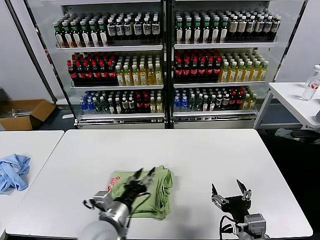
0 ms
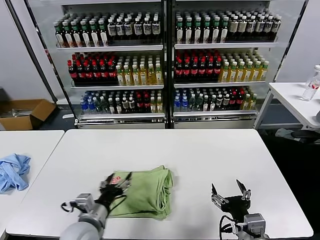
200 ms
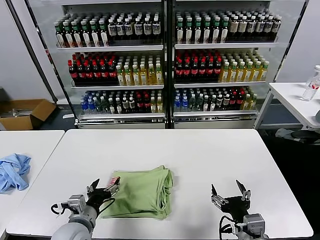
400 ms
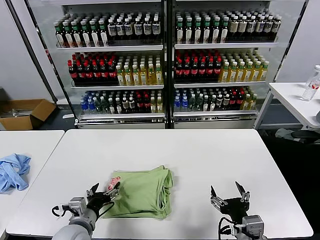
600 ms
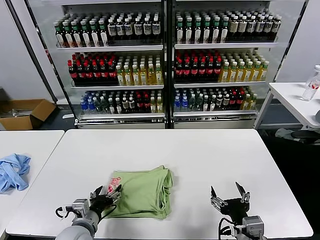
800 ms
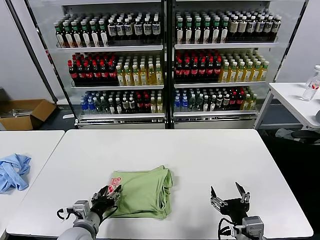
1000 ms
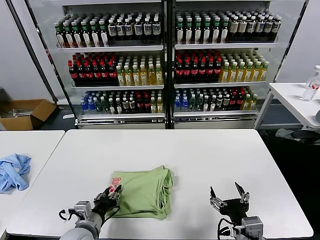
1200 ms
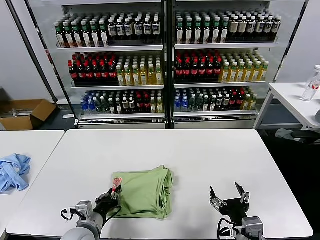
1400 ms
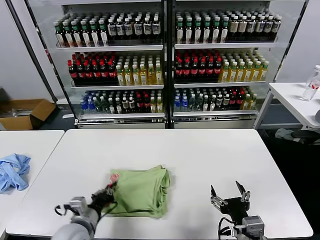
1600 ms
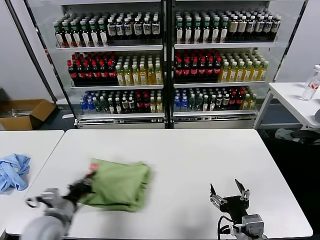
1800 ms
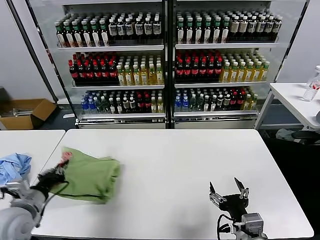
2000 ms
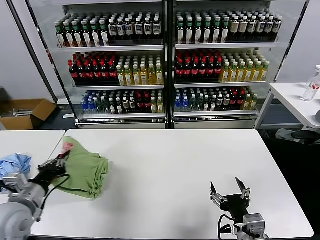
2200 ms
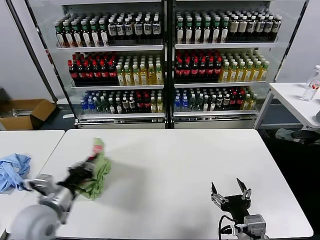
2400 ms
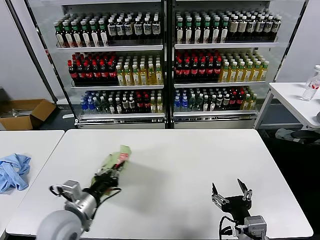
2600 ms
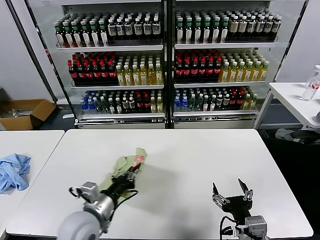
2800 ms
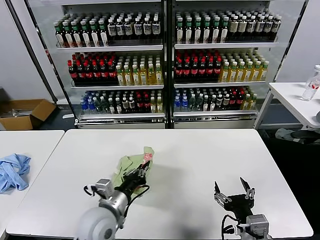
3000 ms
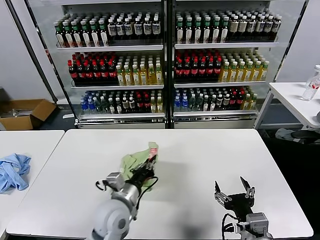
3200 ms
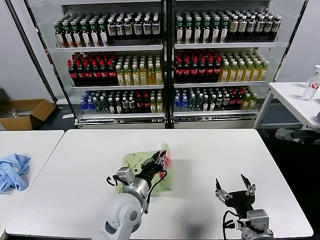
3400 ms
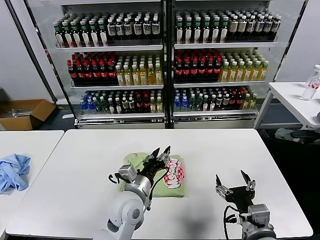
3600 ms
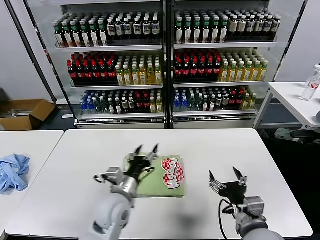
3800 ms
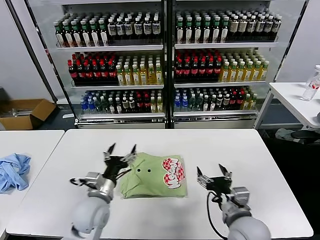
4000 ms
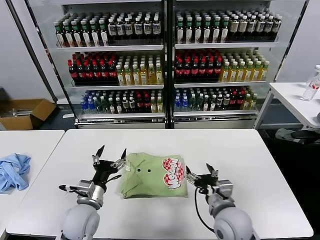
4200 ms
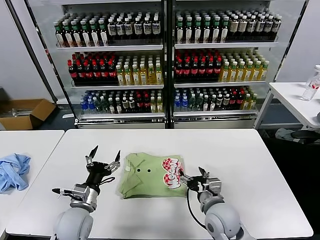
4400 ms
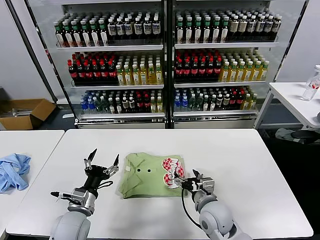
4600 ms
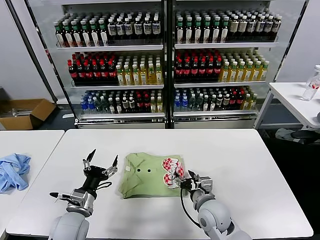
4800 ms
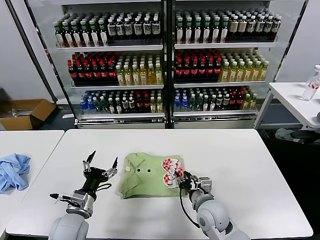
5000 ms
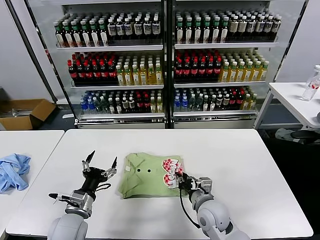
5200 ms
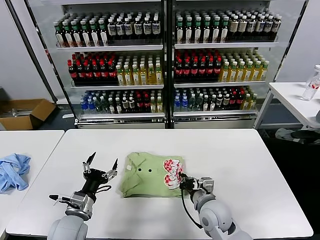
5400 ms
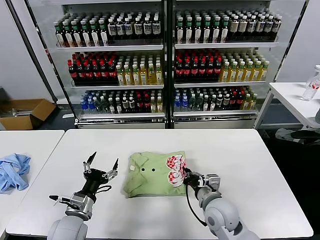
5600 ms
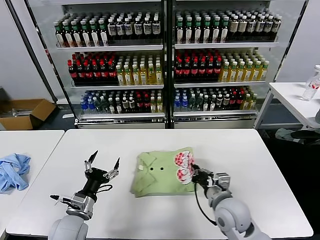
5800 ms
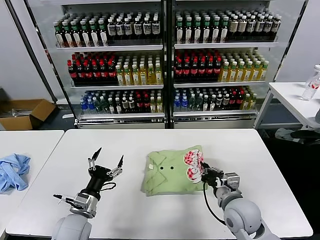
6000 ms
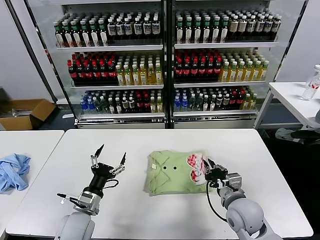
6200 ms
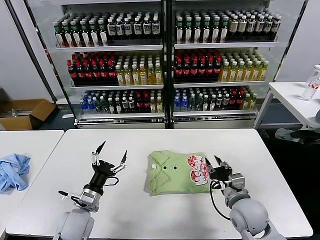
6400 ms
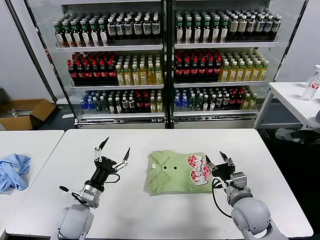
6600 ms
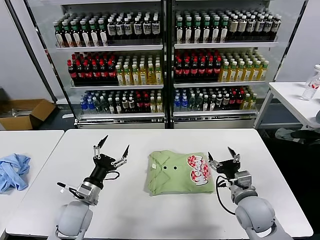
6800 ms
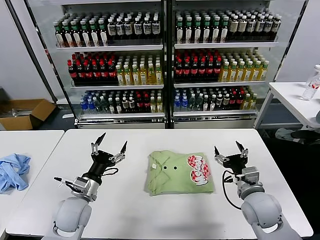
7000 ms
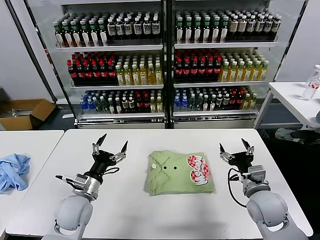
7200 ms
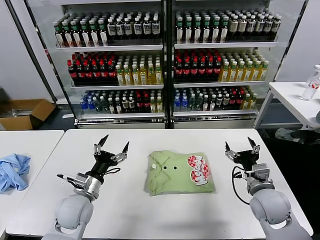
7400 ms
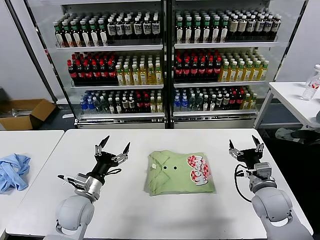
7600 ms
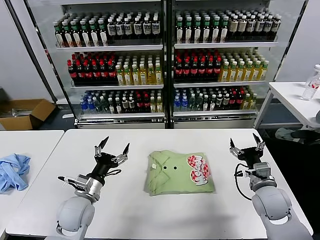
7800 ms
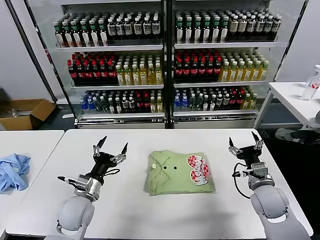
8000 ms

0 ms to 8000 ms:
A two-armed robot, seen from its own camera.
Task of the whole recording: fold and organize the clothes.
Step, 0 ms to 3400 ms: Flip the folded clothes over with left gripper.
Step, 3600 ms to 6200 ms: Drag the clothes to the center of the table.
0 ms to 1600 ms: The left gripper travels to the left and downward by some 10 cm, and closes up.
1600 ms to 3200 ms: The left gripper goes some 15 cm to the right and upward.
3200 ms to 4800 ms: The left gripper travels to the left and downward by approximately 15 cm, and opens its fingers, while the right gripper heads forward, downward and to the left, covering roughly 20 cm.
4800 ms to 6400 ms: The right gripper heads to the right, covering approximately 10 cm, and closes.
6400 ms to 8000 ms: The right gripper heads to the right, covering about 10 cm, and opens.

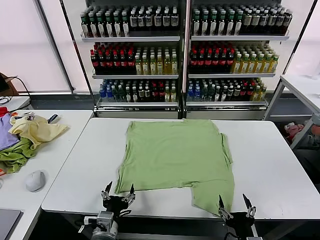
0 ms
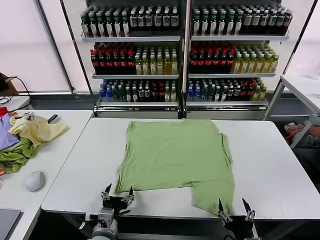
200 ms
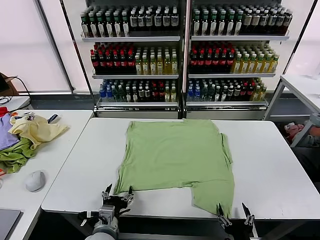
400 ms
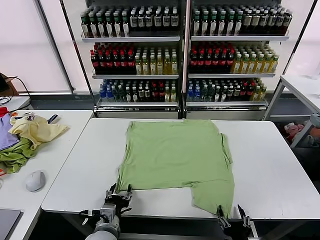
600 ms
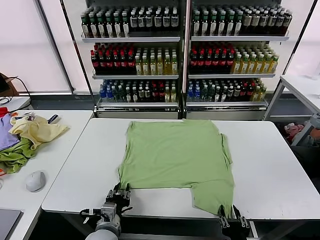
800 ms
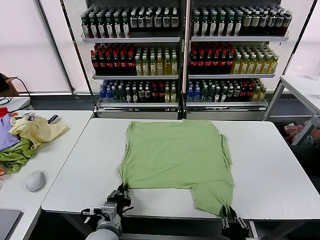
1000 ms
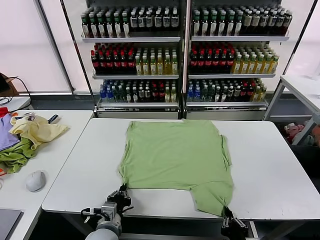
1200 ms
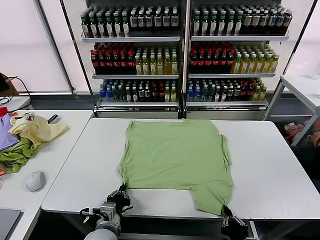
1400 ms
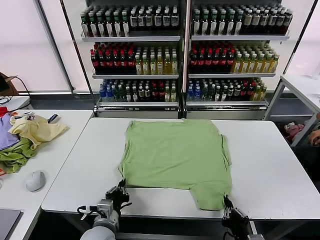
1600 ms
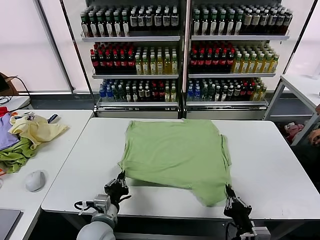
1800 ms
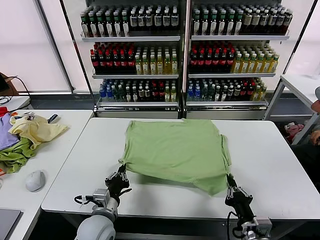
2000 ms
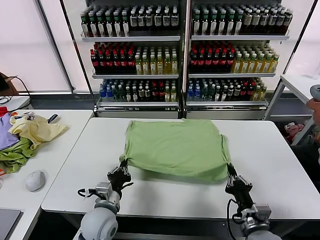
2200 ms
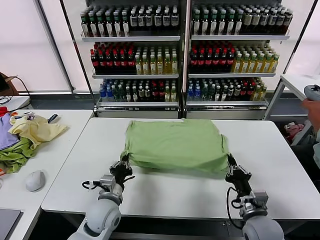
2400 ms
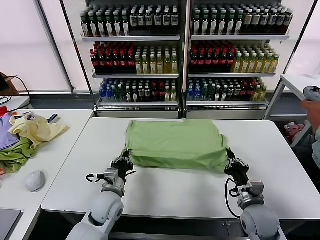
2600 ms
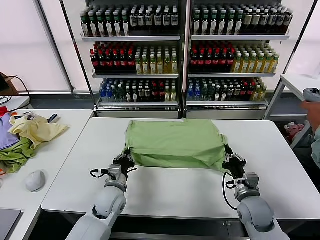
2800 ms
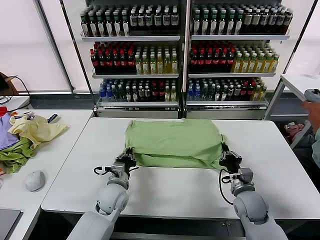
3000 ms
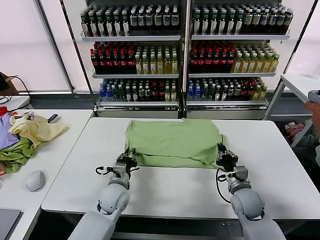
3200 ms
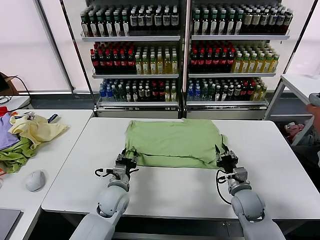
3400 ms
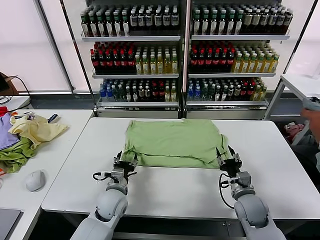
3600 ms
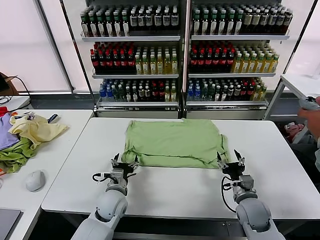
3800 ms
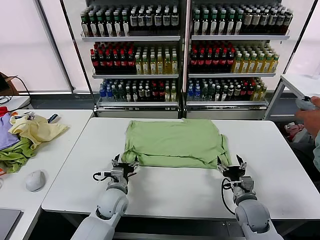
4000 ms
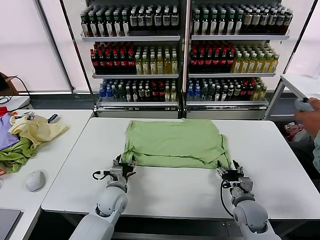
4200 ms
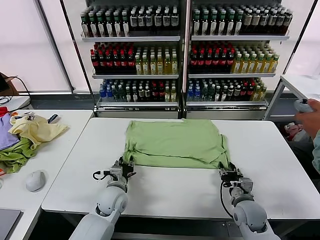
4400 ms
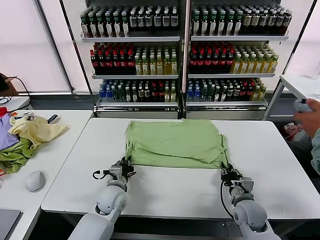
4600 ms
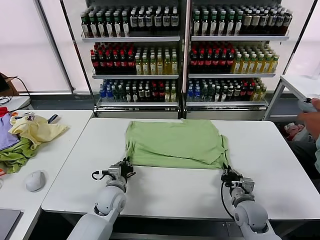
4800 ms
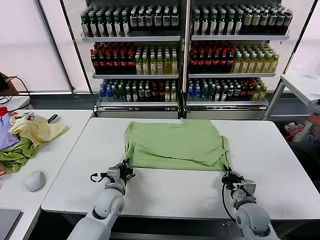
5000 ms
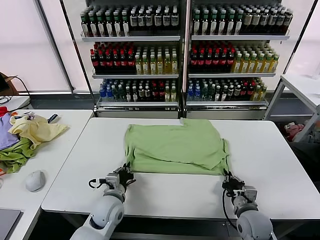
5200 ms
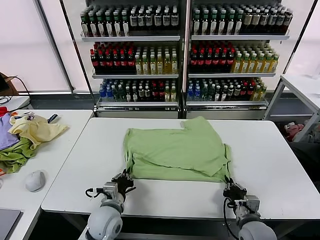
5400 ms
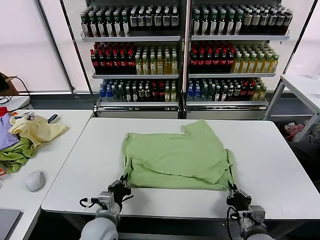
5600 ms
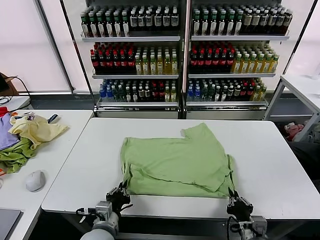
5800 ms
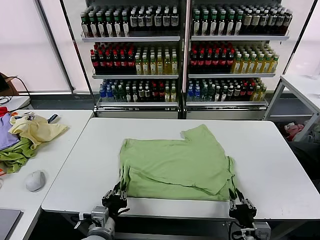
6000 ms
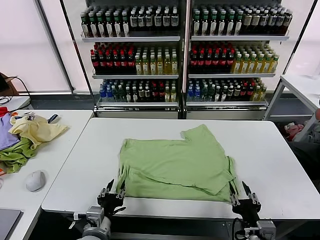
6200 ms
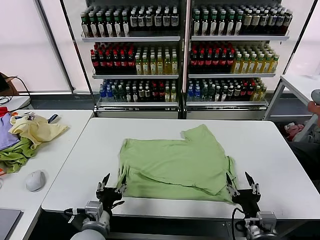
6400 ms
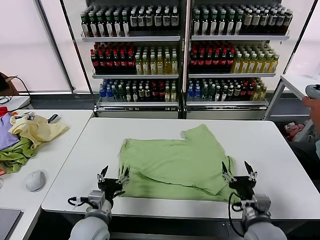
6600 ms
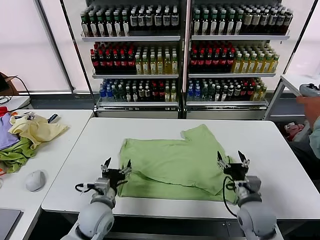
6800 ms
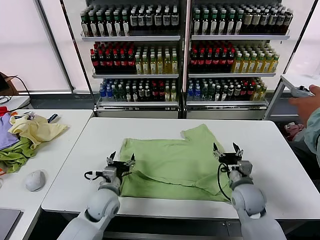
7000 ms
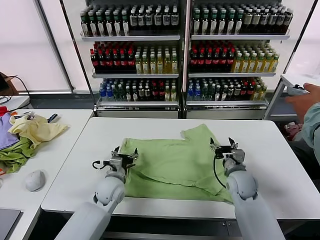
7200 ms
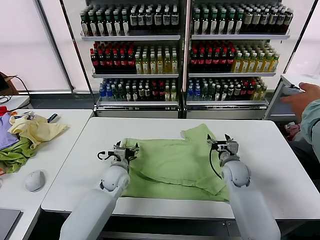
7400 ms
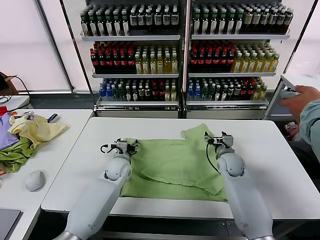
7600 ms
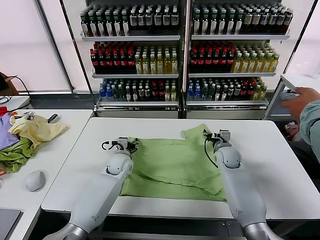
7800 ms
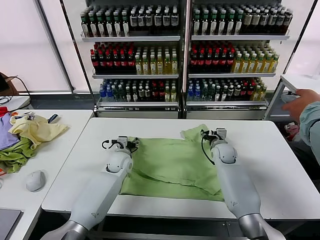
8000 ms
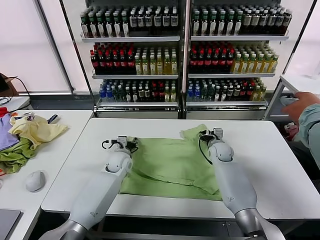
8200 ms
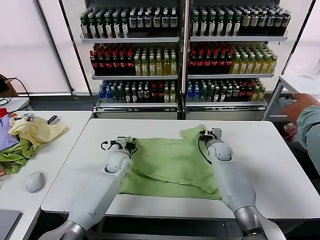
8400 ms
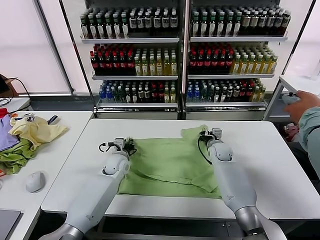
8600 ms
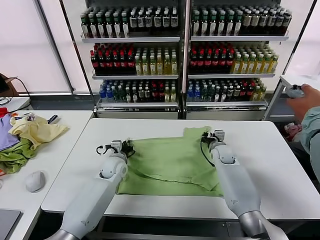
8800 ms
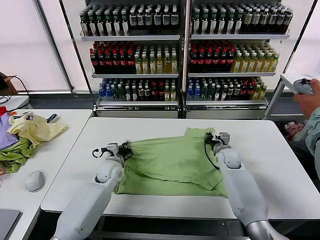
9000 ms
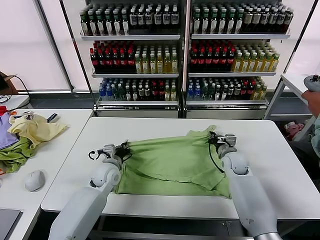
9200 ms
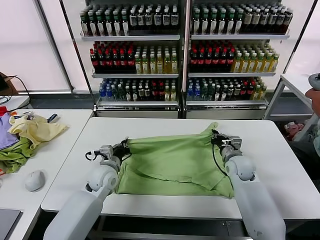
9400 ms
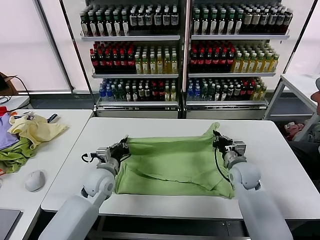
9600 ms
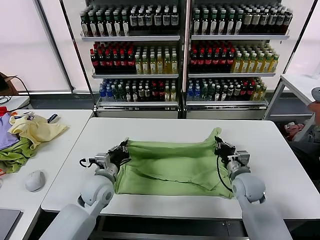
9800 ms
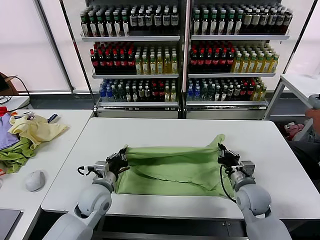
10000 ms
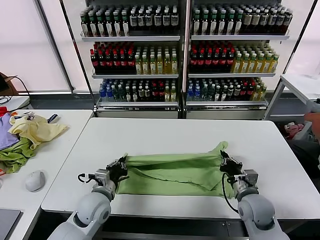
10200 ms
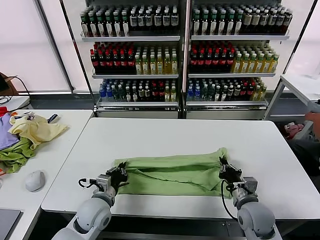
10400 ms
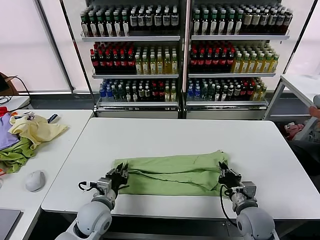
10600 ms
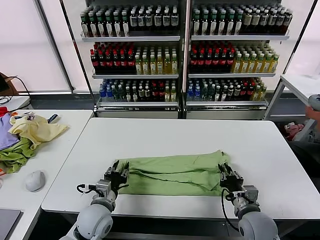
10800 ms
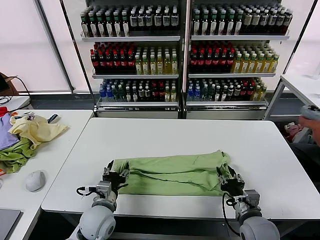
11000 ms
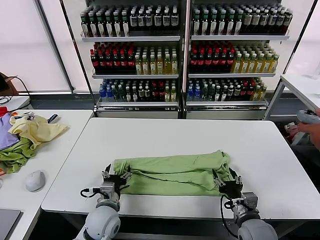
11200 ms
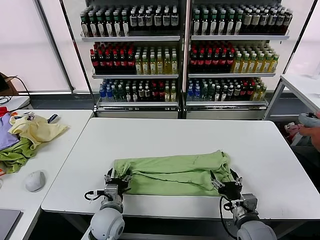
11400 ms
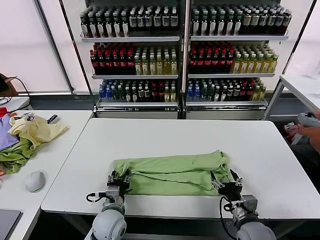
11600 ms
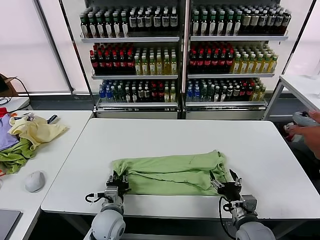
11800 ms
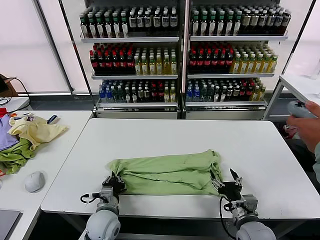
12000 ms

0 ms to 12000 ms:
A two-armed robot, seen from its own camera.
Task of the whole recording: fold and organize the clothes.
Step, 0 ms to 1200 ms: use both grippers simultaneously to clamp the lower edge of the clothing fabric.
Step, 1400 ms to 3400 ms: use both grippers to drag the lower edge of the fabric forward and fold it over the upper edge.
Step, 3800 ms to 6000 ms: Drag the clothes downward with both gripper.
Step, 6400 ms to 8800 ms: use both grippers simultaneously to clamp the upper edge of the clothing fabric.
Step, 9000 ms to 10800 ms: use both grippers to drag the upper edge of the fabric backward and fold it over the lower edge.
Step, 11200 ms to 12000 ms: use the left gripper to clamp the left edge of the fabric.
1600 ms to 3000 ms: Both grippers move forward, about 15 cm.
3000 ms to 4400 ms: The right gripper opens and closes again. Meanwhile the left gripper opens, then closes once more.
4400 ms to 6000 ms: Both grippers travel together backward, some 15 cm. The right gripper closes, then opens again.
6000 ms to 7600 ms: The two grippers go about 30 cm forward. The right gripper opens up. The left gripper opens.
7600 ms to 9000 ms: The left gripper closes up; the right gripper closes.
9000 ms to 10400 ms: The two grippers go approximately 20 cm backward.
10400 ms to 12000 ms: The right gripper heads backward, covering about 5 cm, and opens its fingers, while the left gripper ends up some 5 cm from where it was, and opens, then closes once more.

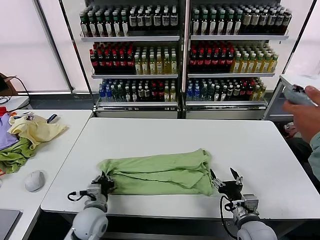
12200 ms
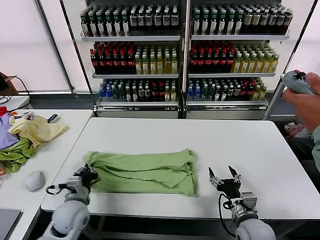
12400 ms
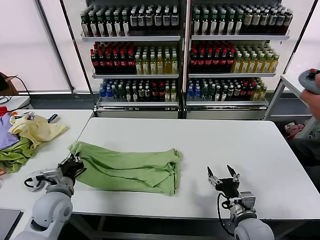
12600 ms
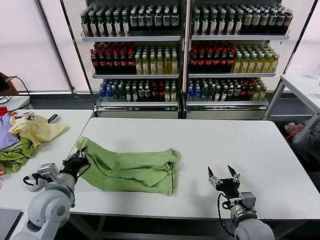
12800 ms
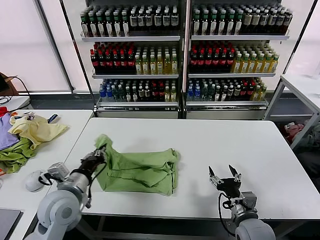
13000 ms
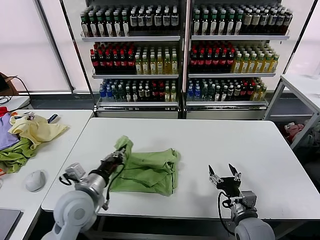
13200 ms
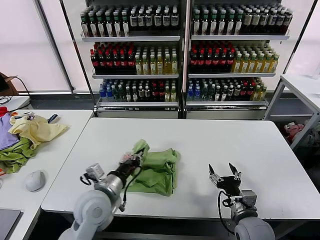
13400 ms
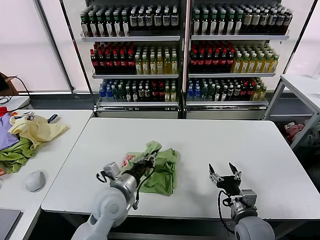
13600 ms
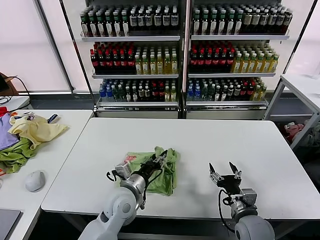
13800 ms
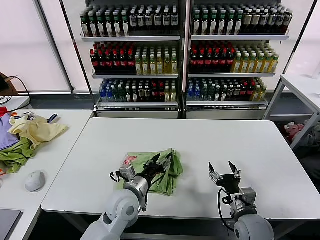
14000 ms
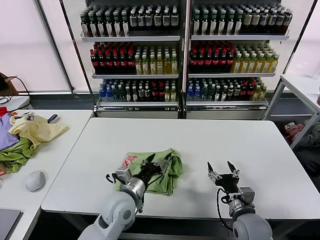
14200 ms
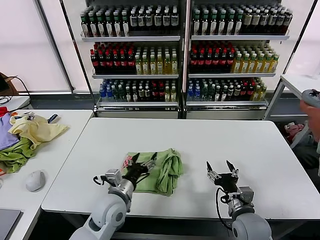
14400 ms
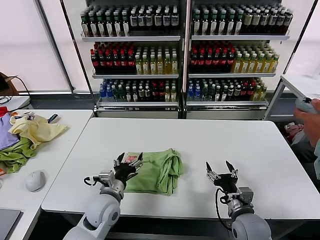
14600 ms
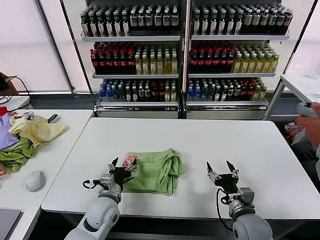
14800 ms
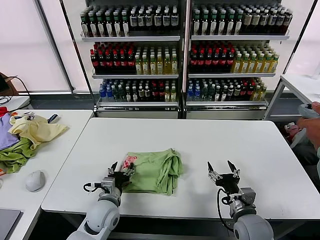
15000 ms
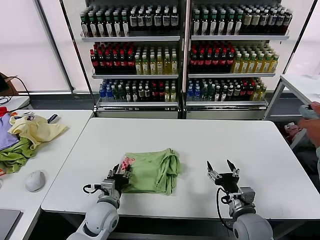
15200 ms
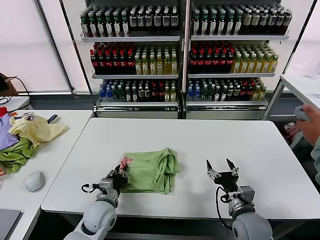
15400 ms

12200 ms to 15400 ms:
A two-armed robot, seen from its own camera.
Task of the whole recording: fold and organize the clothes.
Step, 12200 ms to 14000 ms: use the left gripper to drag the left edge of the fabric to the left and folds it over the right edge.
12200 ms to 13800 ms: The left gripper shifts roughly 10 cm to the right and upward, and opens.
13800 ms to 15400 ms: The left gripper shifts approximately 10 cm downward and to the left, and opens, then closes once more.
